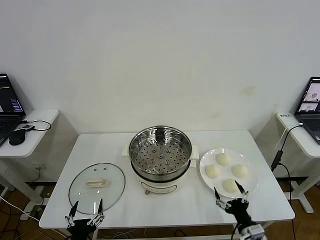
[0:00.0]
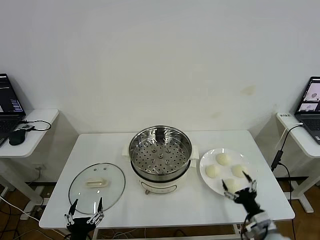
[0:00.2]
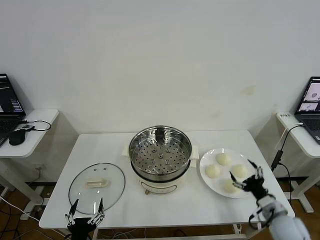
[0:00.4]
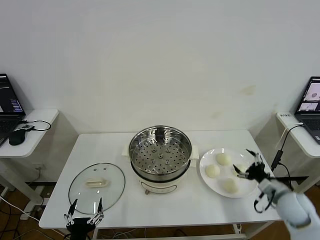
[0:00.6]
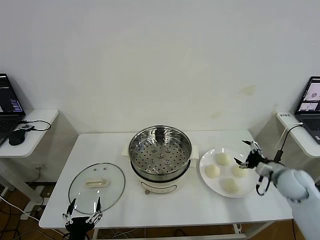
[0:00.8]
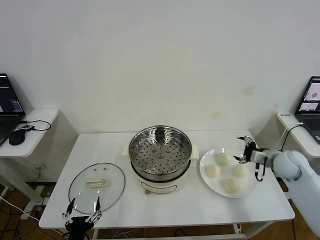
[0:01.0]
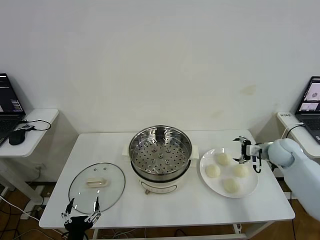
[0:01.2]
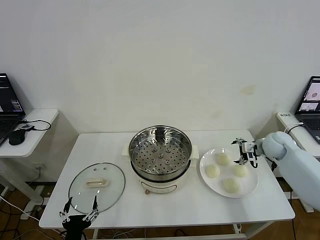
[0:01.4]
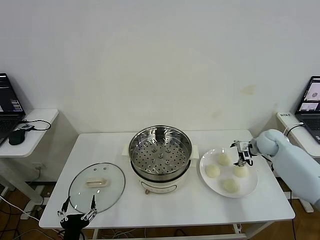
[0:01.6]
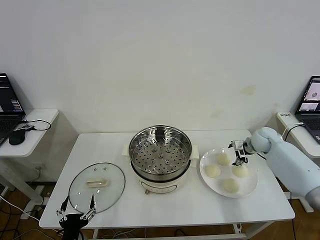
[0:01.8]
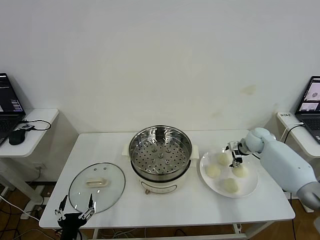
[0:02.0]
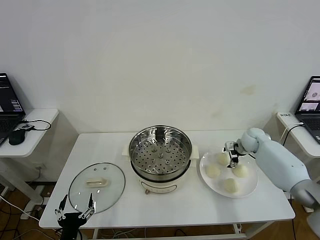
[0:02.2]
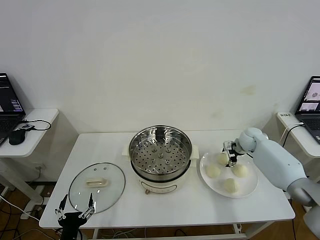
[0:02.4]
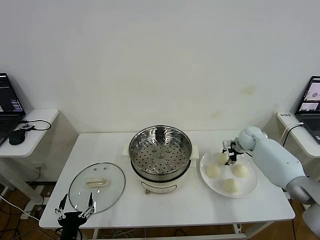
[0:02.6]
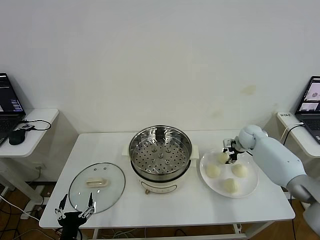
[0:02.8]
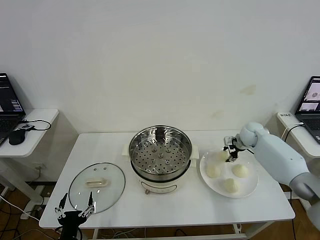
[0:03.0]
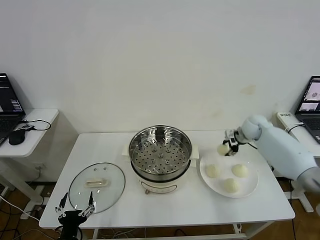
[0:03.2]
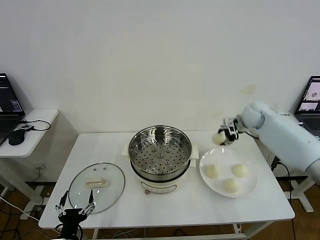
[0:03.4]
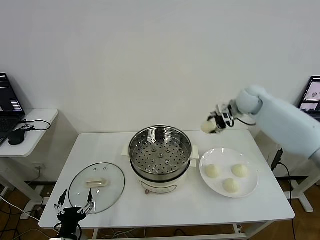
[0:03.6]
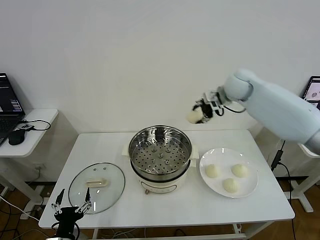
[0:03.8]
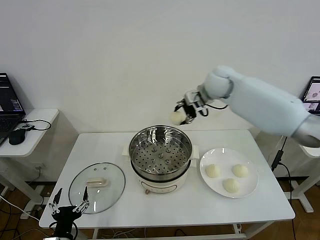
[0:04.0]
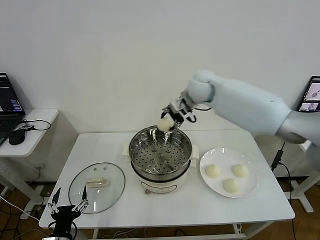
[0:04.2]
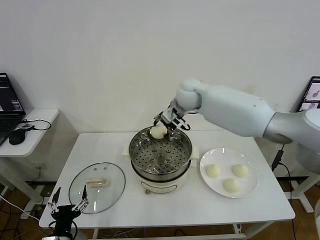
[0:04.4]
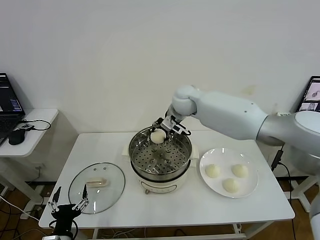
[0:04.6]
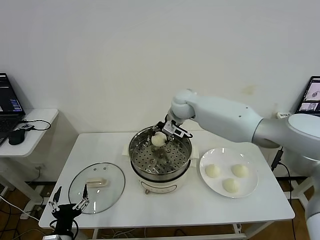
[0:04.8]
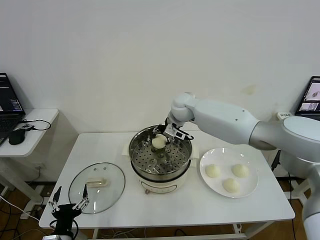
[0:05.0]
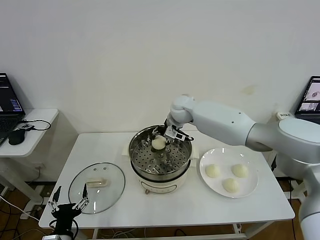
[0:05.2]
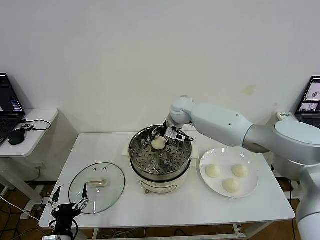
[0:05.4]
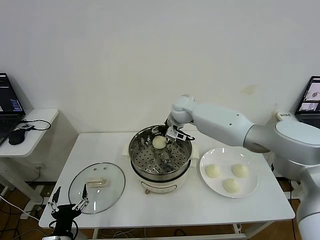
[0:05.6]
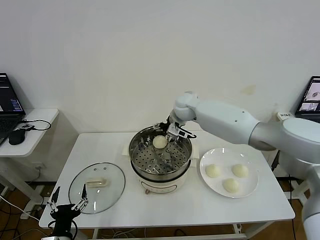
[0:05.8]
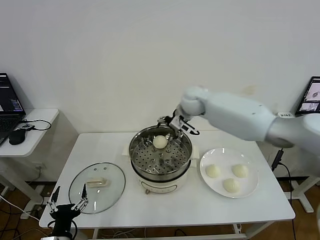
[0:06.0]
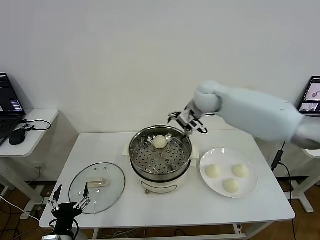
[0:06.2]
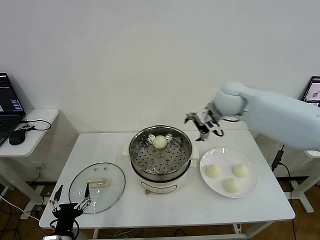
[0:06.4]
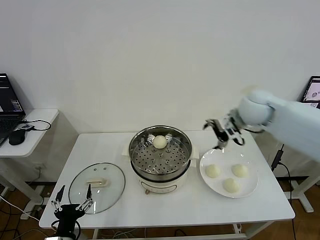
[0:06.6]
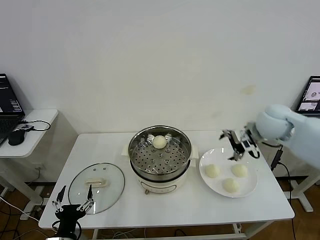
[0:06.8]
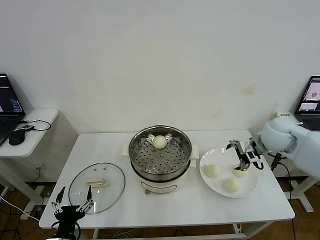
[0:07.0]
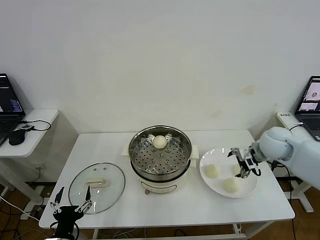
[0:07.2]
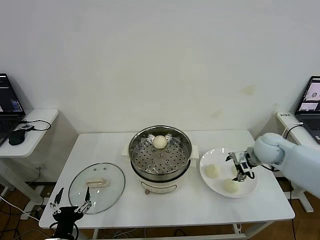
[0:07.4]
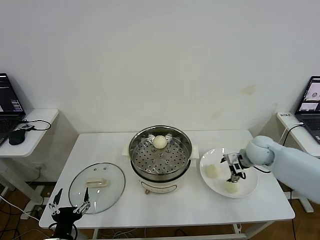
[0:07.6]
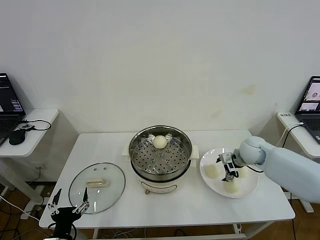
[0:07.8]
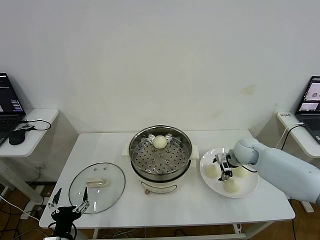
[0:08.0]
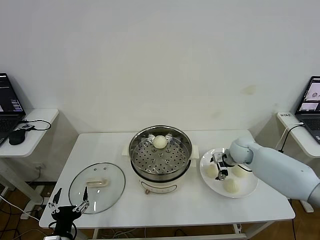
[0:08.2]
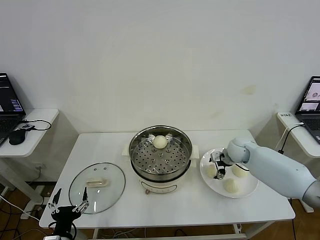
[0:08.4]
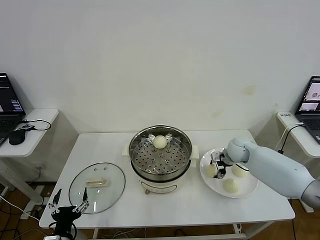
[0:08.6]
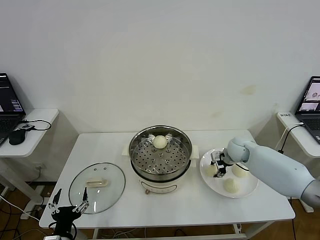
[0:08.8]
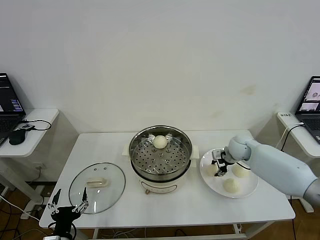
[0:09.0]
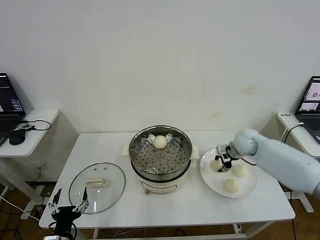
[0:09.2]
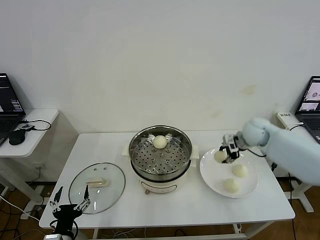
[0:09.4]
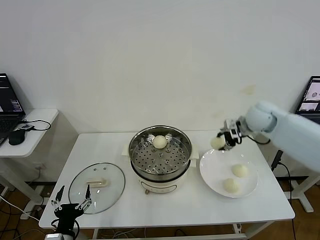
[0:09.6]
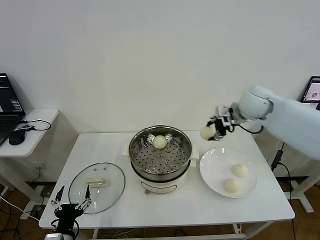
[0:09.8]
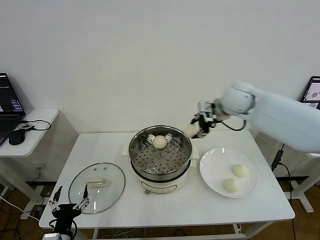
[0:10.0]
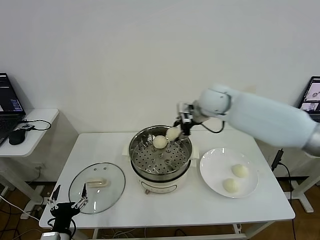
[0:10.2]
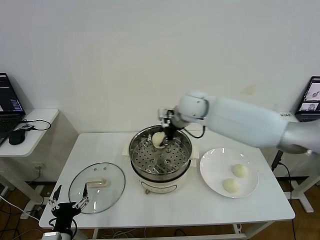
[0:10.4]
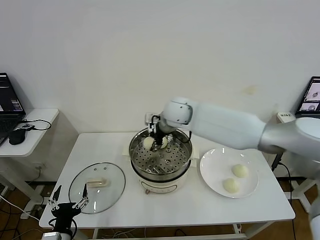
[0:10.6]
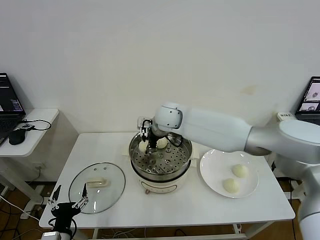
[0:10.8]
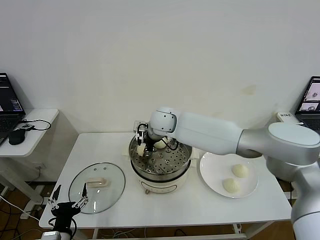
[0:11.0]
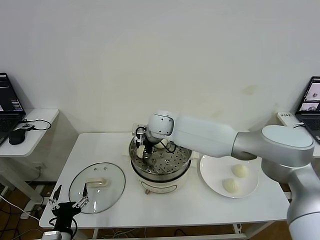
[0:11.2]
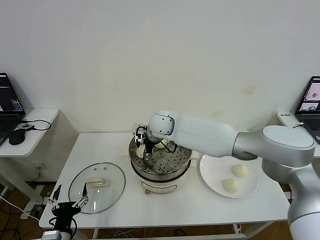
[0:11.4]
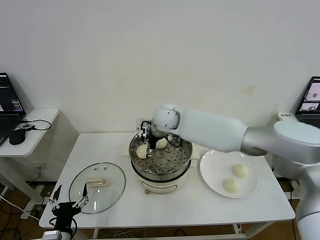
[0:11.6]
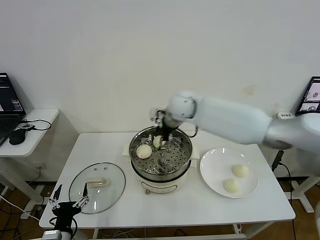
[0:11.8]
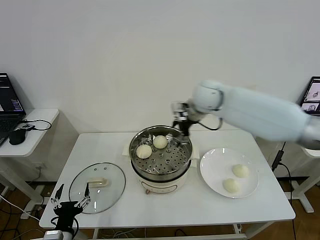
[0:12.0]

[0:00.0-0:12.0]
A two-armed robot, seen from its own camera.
Step, 0:00.0 to 0:02.6: Grasp the baozi in the plate with right gripper.
Step, 0:02.8 to 0:05.6: Place the baozi on the steamer with right gripper.
Step, 0:05.8 to 0:08.6: Grasp the baozi in the plate with right gripper.
Step, 0:08.8 to 0:11.4: Place the baozi on the steamer with right gripper.
0:01.6 to 0:03.0: The right gripper shifts by roughly 5 cm, and closes.
0:03.0 to 0:04.4: The right gripper shifts some 35 cm to the left and upward.
0:04.4 to 0:06.0: The right gripper opens its fingers.
0:06.0 to 0:07.6: The right gripper moves to the right, downward and backward, roughly 30 cm.
0:07.6 to 0:09.0: The right gripper changes place by about 5 cm, and closes up.
0:09.0 to 0:10.4: The right gripper moves to the left and upward, some 30 cm.
0:10.4 to 0:12.0: The right gripper goes roughly 10 cm to the right, and opens up.

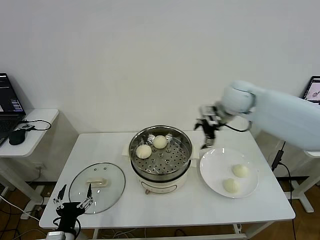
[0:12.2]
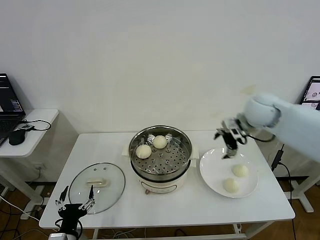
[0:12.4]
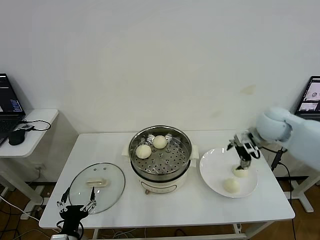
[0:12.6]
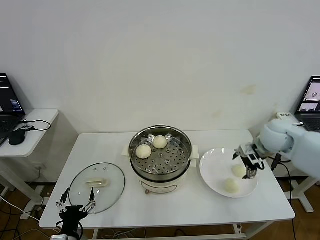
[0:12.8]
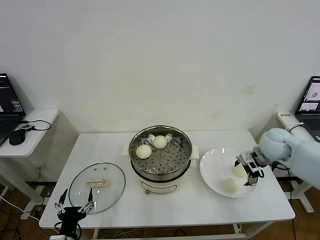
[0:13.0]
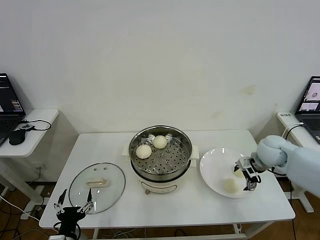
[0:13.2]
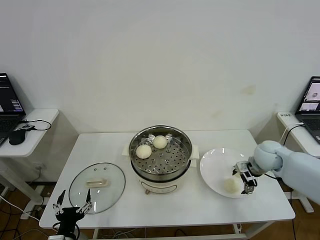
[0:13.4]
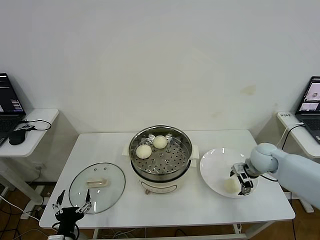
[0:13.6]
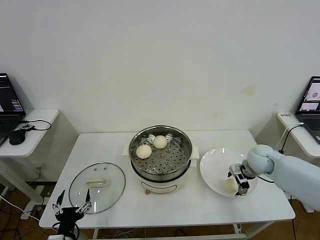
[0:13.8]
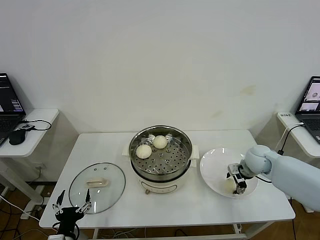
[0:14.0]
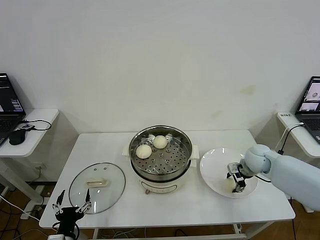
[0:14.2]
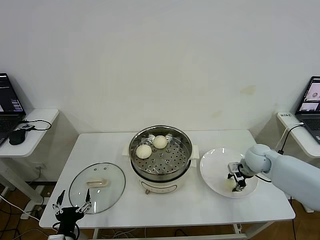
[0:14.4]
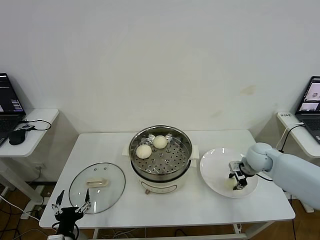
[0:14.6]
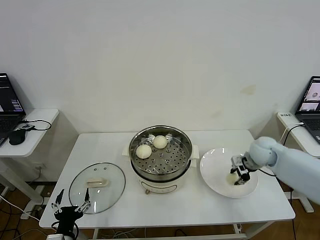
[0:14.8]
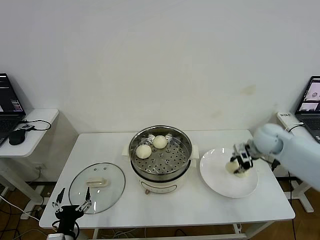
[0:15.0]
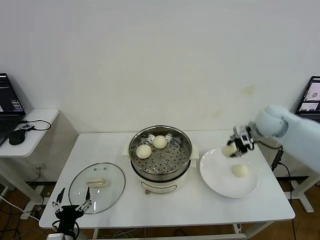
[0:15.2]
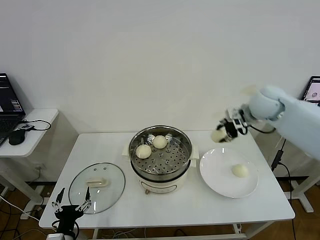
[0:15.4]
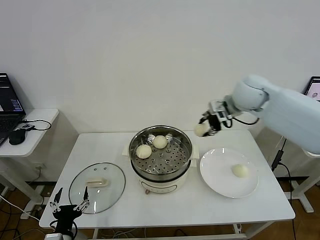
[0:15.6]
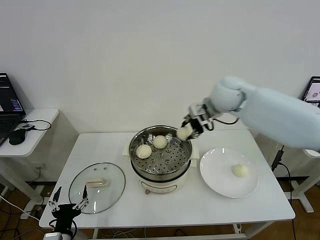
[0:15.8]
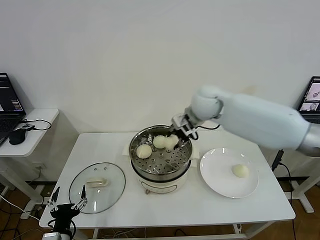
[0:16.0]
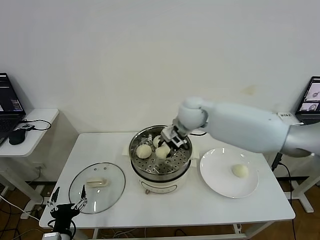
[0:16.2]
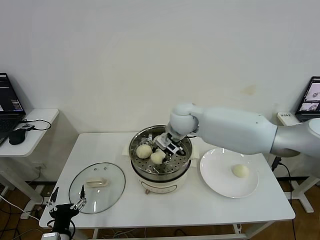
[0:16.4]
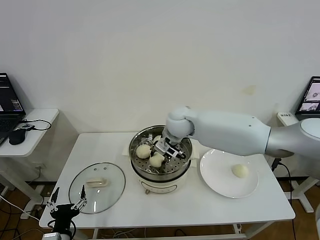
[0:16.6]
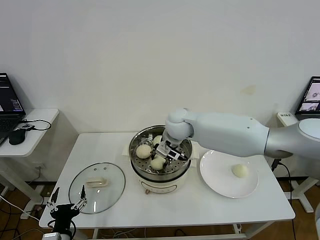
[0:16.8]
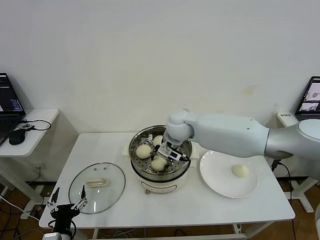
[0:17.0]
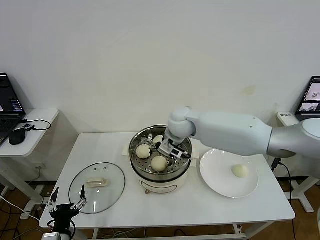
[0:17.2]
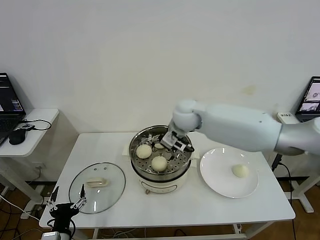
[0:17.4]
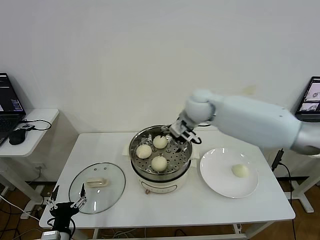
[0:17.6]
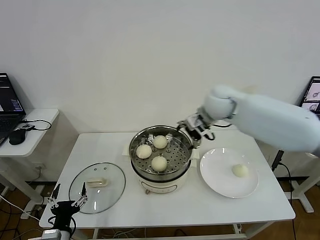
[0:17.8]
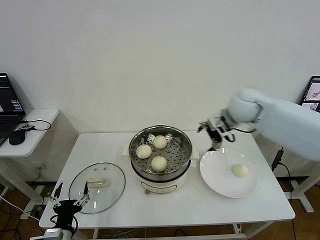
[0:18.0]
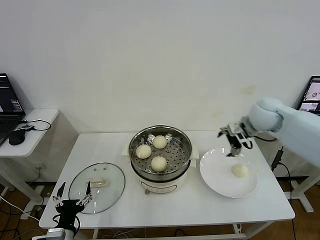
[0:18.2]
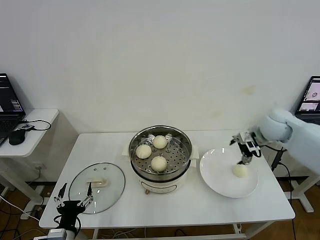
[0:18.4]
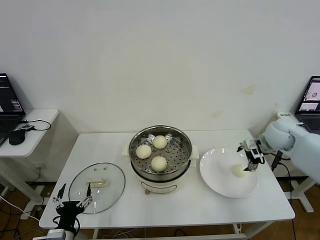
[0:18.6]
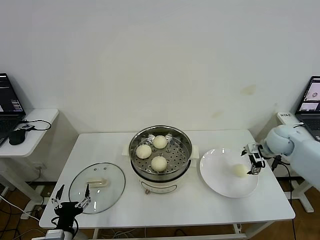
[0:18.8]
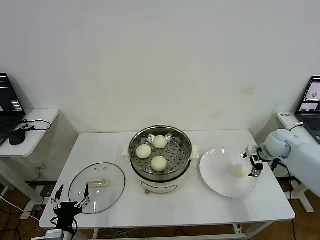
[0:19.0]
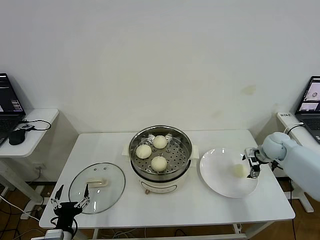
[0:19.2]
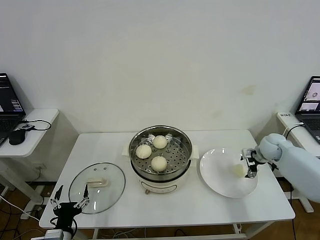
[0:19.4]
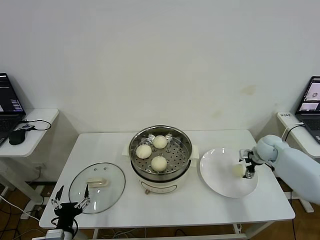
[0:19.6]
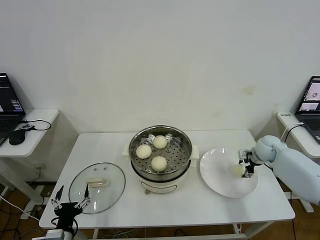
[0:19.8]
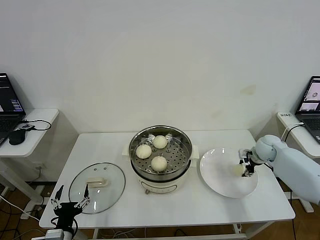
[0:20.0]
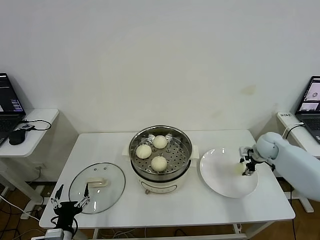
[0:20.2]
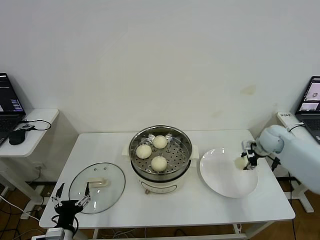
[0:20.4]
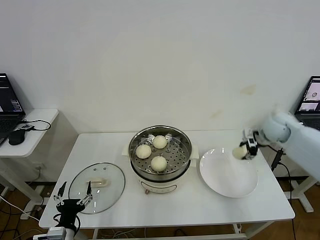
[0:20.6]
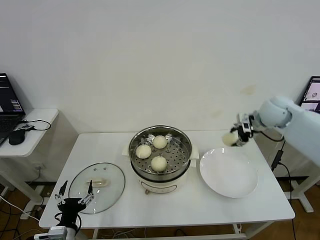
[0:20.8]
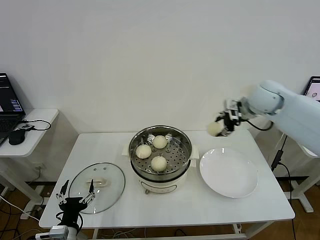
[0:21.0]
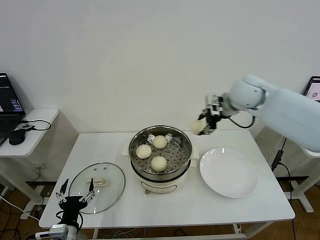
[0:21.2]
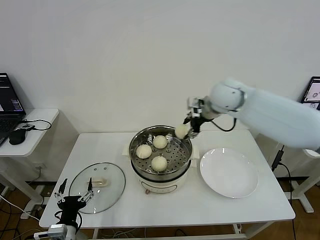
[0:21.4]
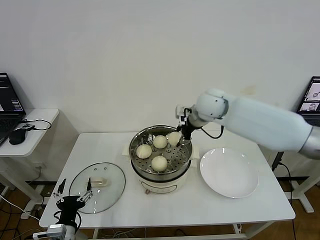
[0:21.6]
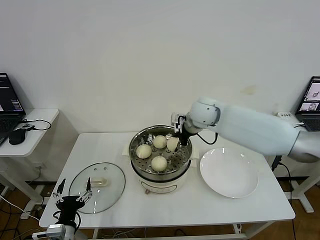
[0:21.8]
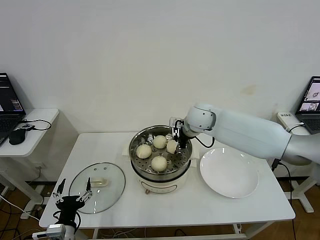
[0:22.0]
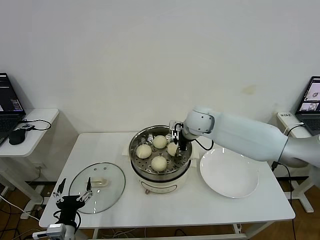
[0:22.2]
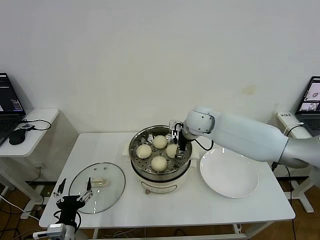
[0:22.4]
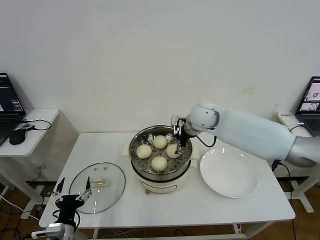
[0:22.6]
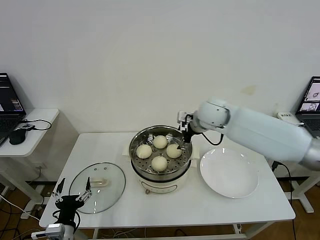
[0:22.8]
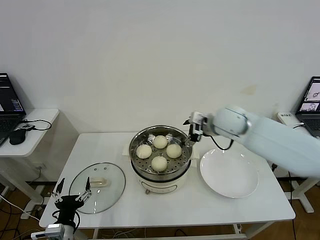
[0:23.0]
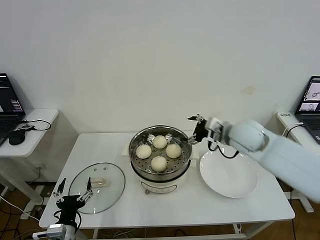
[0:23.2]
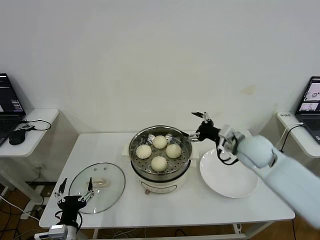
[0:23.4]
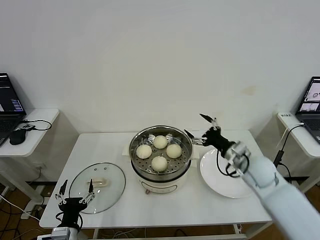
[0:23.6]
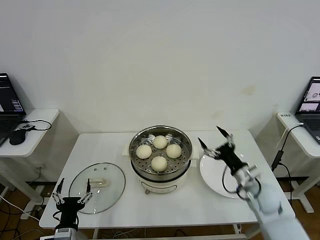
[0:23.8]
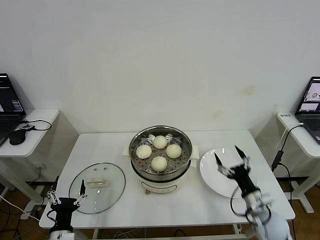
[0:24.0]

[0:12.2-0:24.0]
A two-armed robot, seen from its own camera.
Step, 0:12.2 to 0:14.4: Grasp the baozi in the plate with right gripper.
Step, 0:14.6 to 0:17.2: Place the baozi on the steamer with right gripper.
Step, 0:17.4 to 0:20.0: Grasp the baozi in the plate with right gripper.
Step, 0:20.4 to 0:22.4: Place the baozi on the steamer with right gripper.
0:12.2 to 0:13.6: The right gripper heads downward and to the right, covering approximately 25 cm.
0:13.6 to 0:15.2: The right gripper shifts about 15 cm upward, and closes up.
0:15.2 to 0:16.6: The right gripper travels to the left by about 30 cm.
0:16.6 to 0:18.2: The right gripper goes some 25 cm to the right, and opens.
0:18.2 to 0:19.6: The right gripper shifts approximately 20 cm downward and to the right.
0:19.6 to 0:21.0: The right gripper moves upward and to the left, roughly 25 cm, and closes its fingers.
0:21.0 to 0:22.6: The right gripper goes some 20 cm to the left and downward, and opens its fingers.
0:22.6 to 0:24.0: The right gripper moves backward, downward and to the right, roughly 40 cm.
